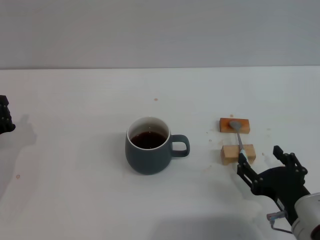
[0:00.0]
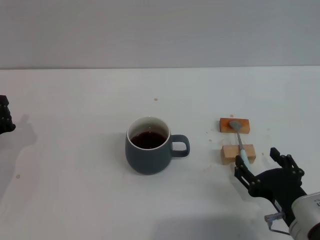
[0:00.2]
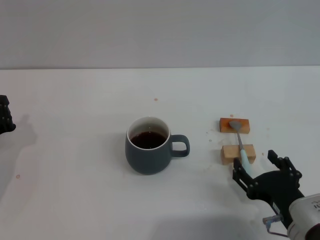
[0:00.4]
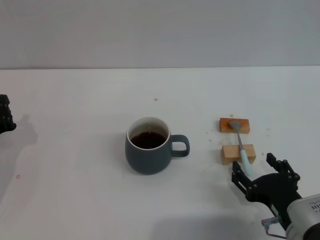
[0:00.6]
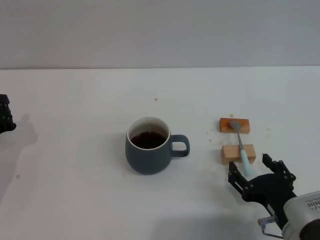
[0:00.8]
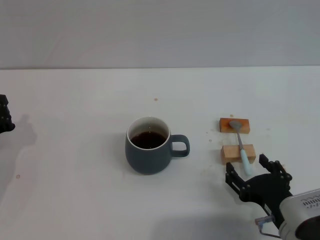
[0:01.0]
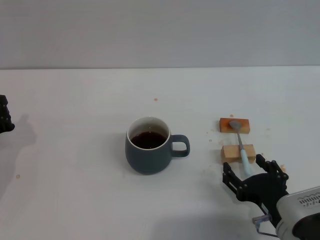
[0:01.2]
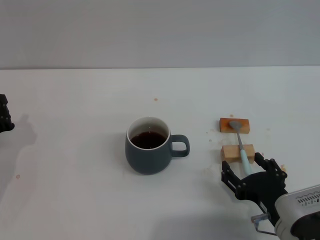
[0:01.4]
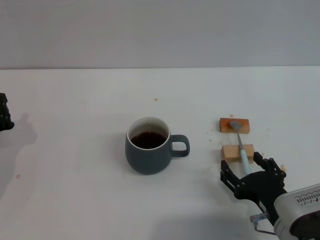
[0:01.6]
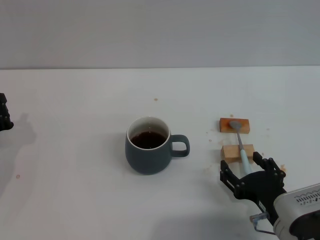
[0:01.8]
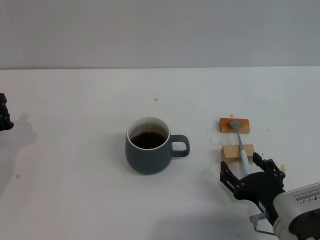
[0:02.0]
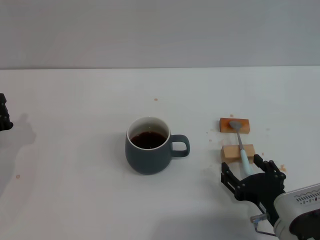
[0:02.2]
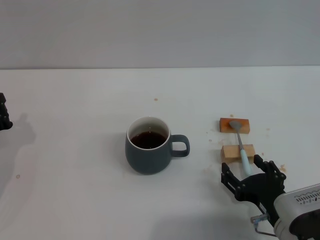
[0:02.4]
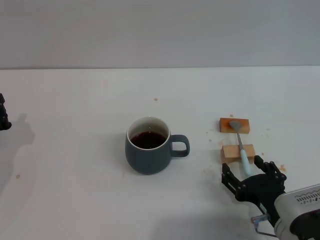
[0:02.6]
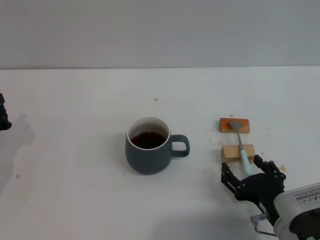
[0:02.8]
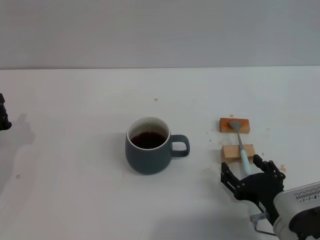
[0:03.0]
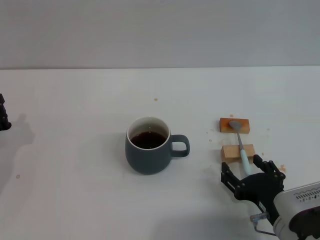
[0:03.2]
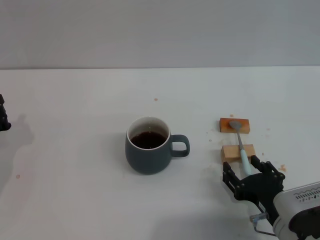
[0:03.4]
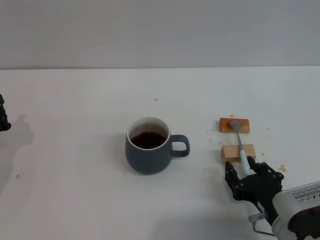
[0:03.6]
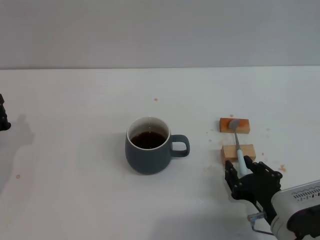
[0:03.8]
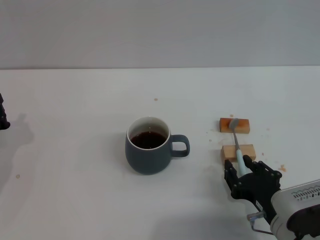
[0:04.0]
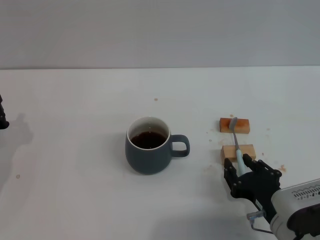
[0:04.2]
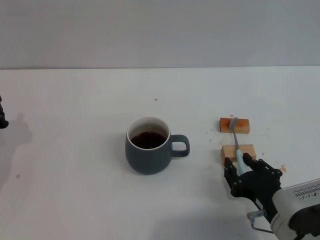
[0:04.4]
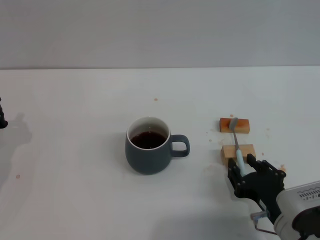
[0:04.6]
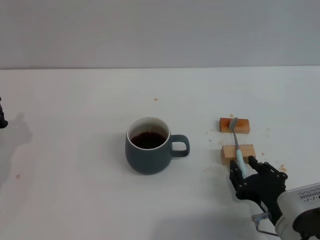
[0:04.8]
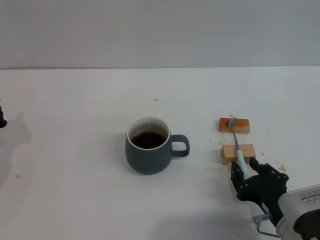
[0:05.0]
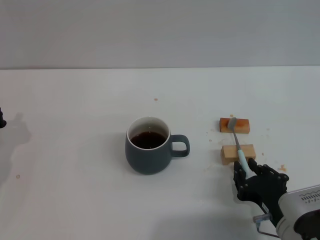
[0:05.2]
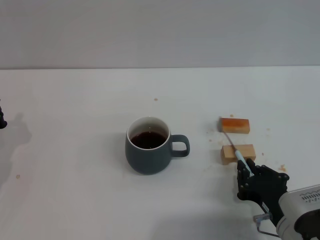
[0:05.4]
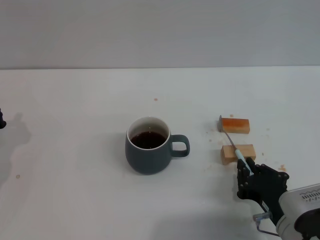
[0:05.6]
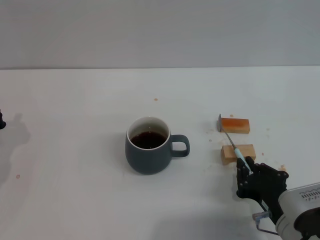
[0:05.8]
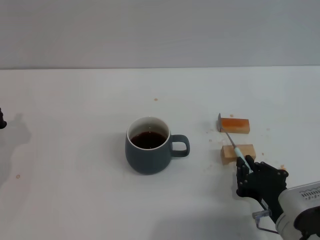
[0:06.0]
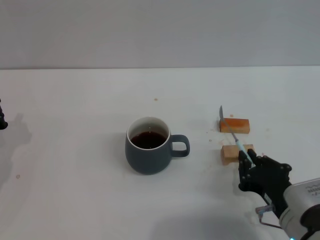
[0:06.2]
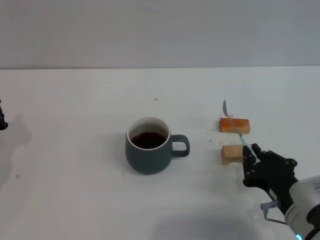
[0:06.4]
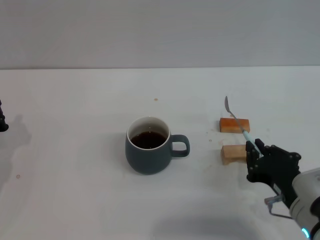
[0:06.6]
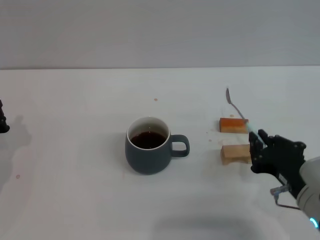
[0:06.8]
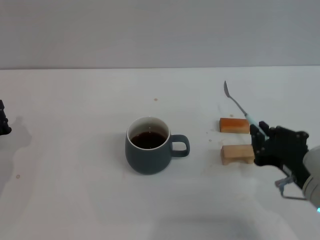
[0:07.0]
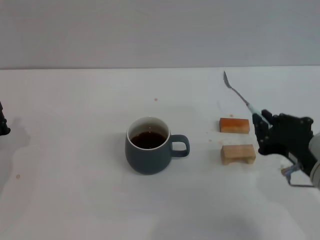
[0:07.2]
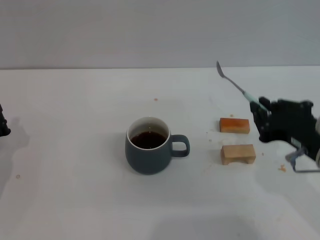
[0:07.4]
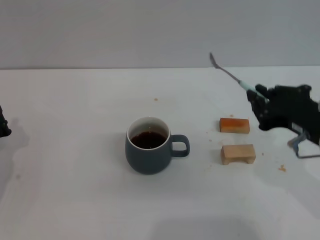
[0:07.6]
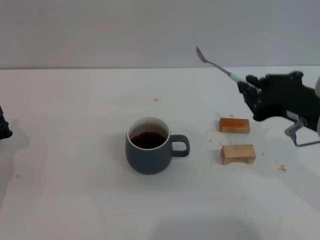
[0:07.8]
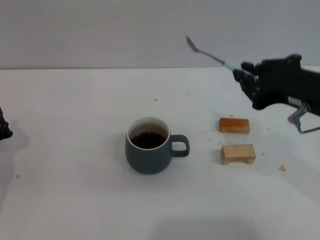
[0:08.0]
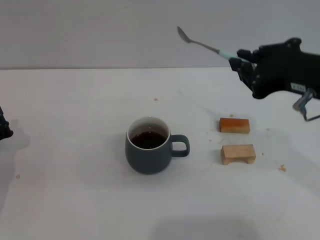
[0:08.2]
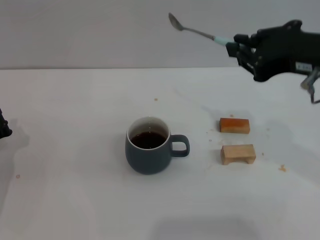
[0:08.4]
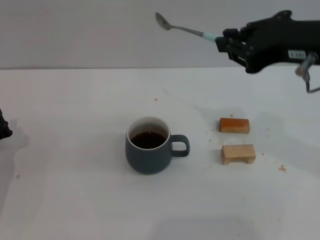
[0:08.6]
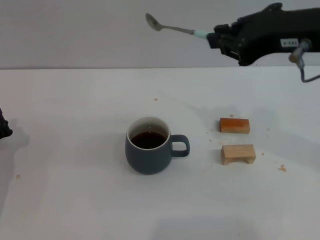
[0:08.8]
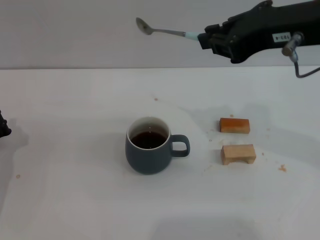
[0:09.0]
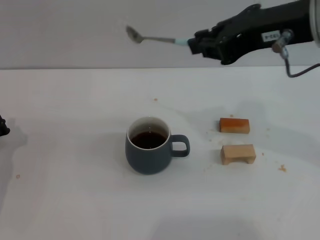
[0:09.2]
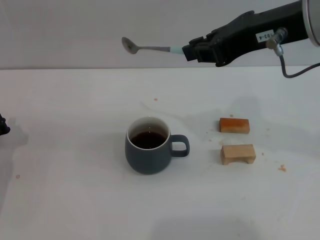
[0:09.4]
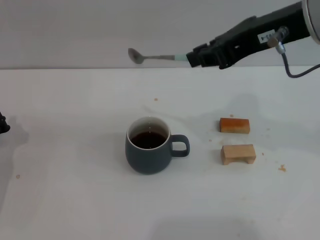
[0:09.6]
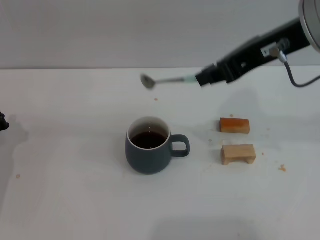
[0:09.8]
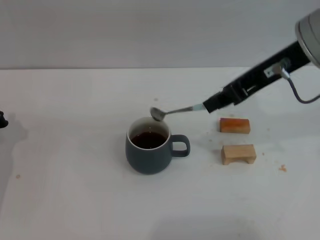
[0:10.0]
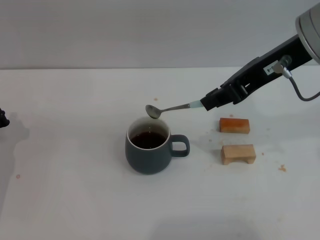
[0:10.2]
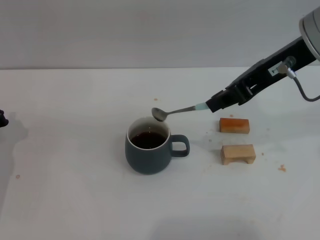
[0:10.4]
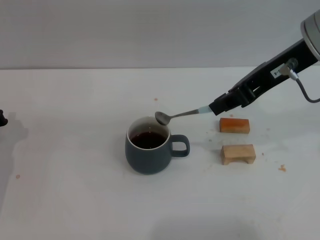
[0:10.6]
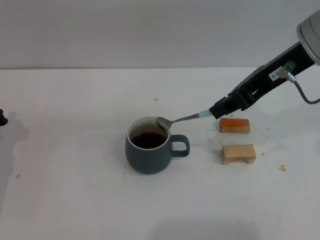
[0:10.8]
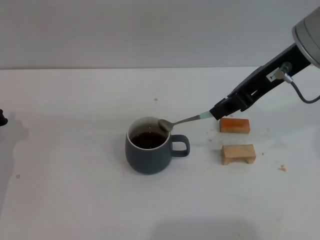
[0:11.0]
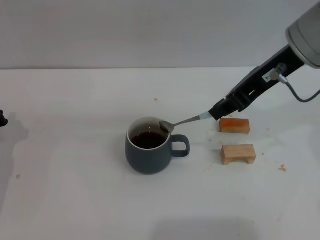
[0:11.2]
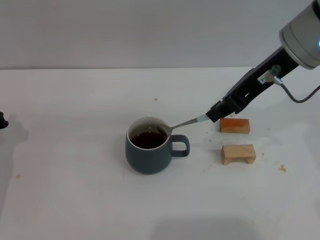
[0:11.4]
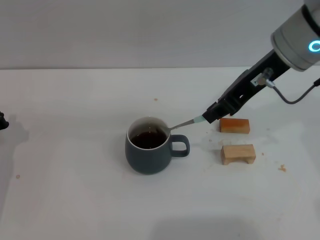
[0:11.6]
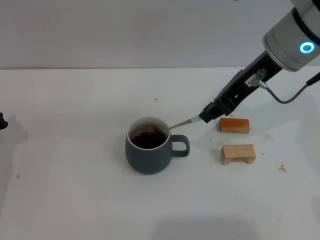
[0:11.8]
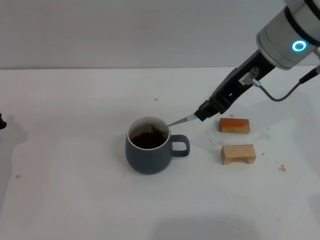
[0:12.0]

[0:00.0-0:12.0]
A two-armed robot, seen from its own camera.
Task of the whole recording: Move the grey cup to the center, lift the blue spoon, stir it three times in the cup, and put the spoon into the cup.
Step, 0:00.0 to 0:06.8: Pick up the spoon with the right gripper.
0:00.0 to 0:01.6: The grippers move only a little.
0:01.6 to 0:03.0: Both grippers stay about where they are.
0:03.0 to 0:04.4: The right gripper closes.
0:04.4 to 0:06.0: The right gripper closes up.
0:06.0 to 0:07.6: The right gripper moves upward, about 15 cm.
0:07.6 to 0:09.0: The right gripper goes about 15 cm upward.
0:10.4 to 0:12.0: The right gripper ends up about 5 cm from where it was.

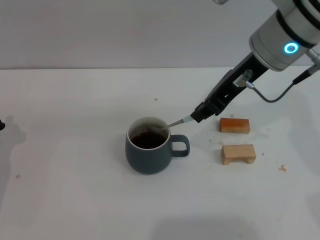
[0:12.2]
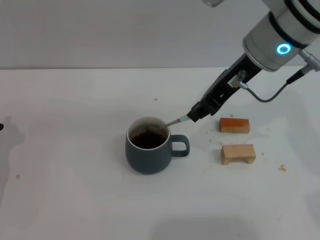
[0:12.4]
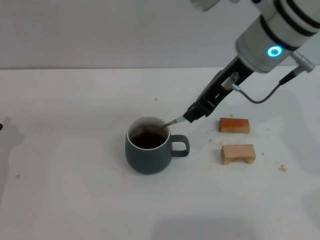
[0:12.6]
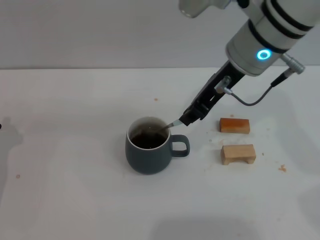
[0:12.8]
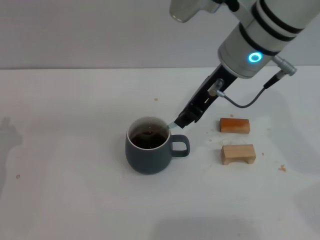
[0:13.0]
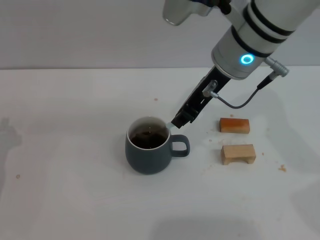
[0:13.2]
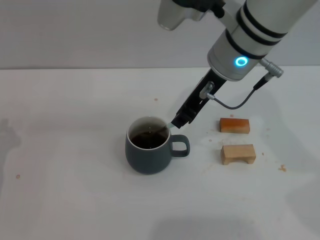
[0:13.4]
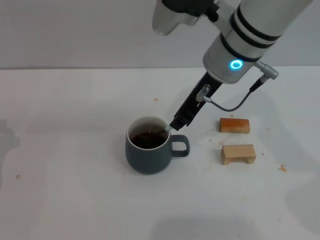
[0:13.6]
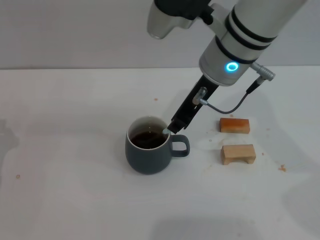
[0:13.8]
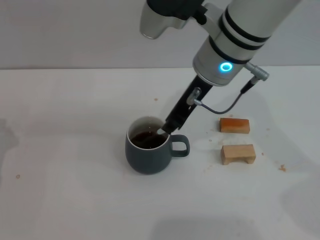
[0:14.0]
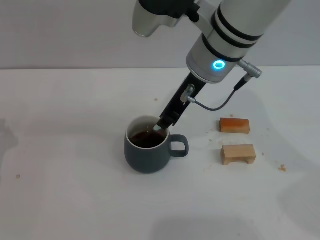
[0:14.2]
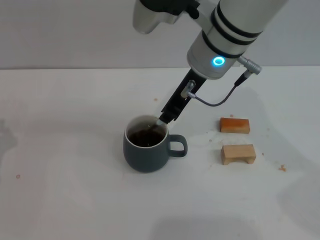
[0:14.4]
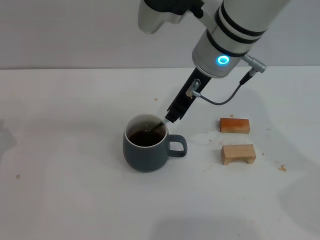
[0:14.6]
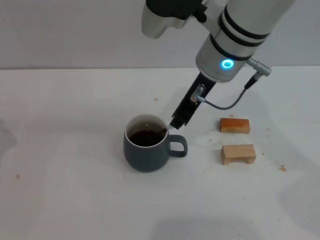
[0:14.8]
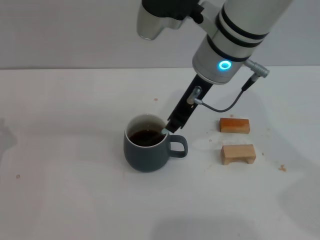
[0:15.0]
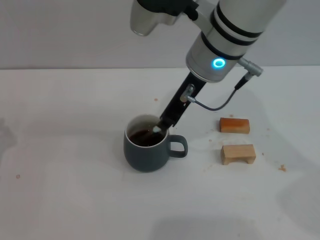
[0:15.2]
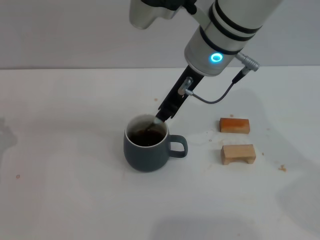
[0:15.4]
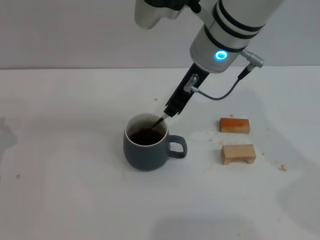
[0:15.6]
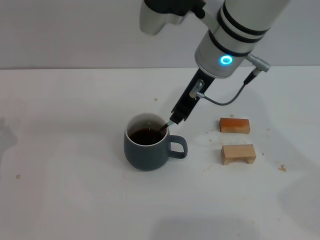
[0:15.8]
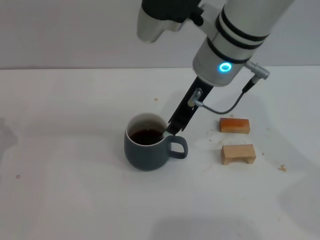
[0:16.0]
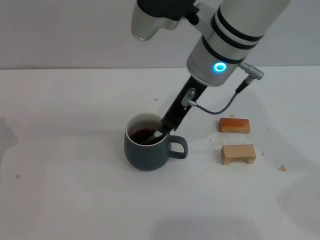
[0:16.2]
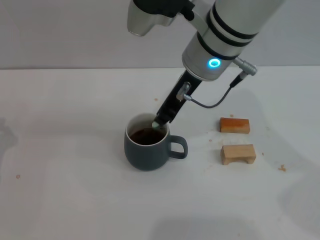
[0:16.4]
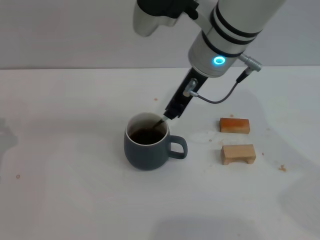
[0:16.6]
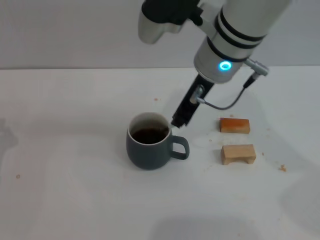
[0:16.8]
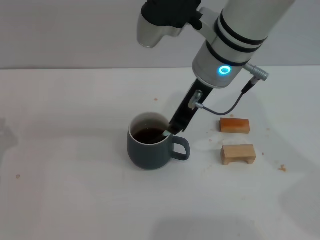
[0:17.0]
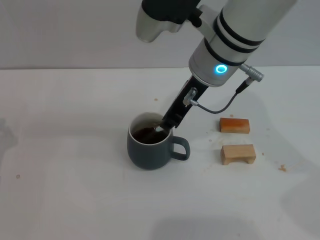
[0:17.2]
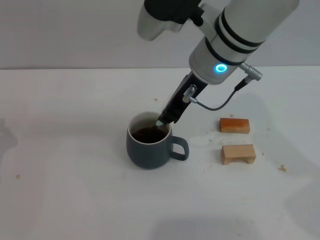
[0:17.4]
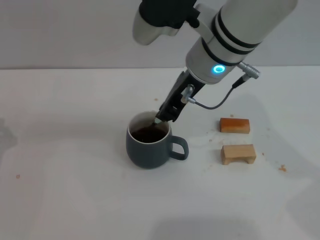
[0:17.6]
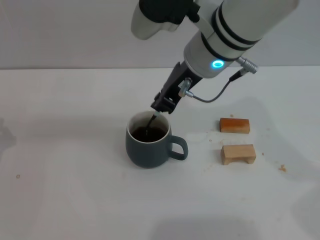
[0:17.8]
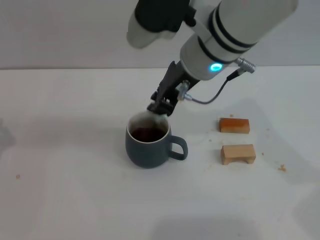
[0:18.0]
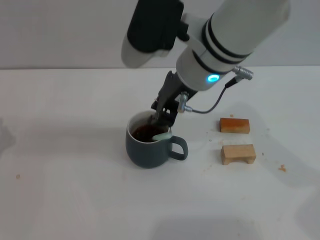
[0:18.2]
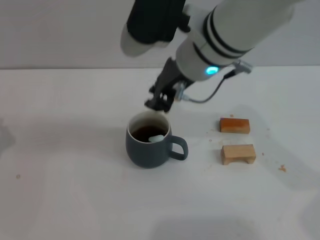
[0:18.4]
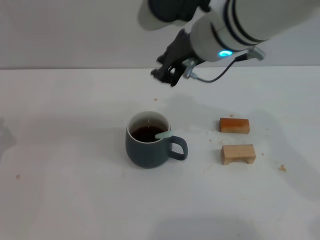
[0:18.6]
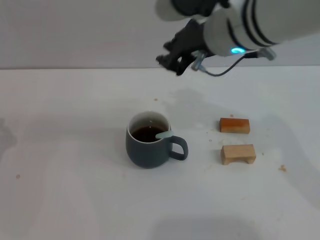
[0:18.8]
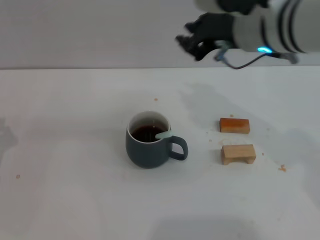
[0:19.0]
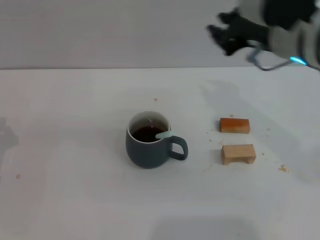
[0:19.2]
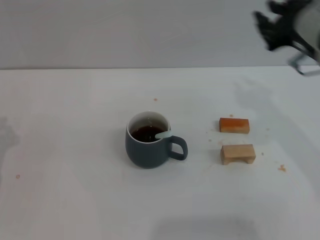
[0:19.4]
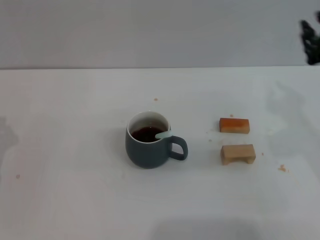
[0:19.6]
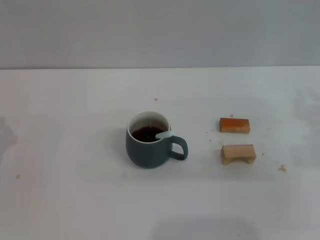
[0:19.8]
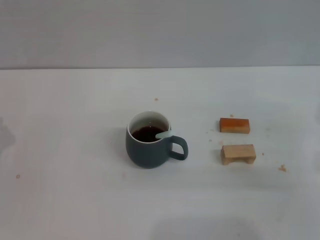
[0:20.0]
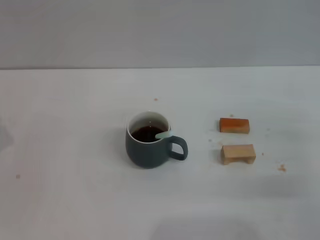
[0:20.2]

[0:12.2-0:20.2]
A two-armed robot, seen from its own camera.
Task of the whole recording: Move the grey cup to the center, lift the blue spoon, stir it three times in the cup, and put the spoon into the cup.
Step, 0:12.2 to 0:18.2: Stir the coffee in the cup with the right gripper.
0:12.2 to 0:13.8: The right gripper is displaced to the left by roughly 5 cm.
0:13.8 to 0:17.0: The grippers move only a little.
0:18.6 to 0:20.2: The right gripper moves to the right, downward and backward, some 35 cm.
